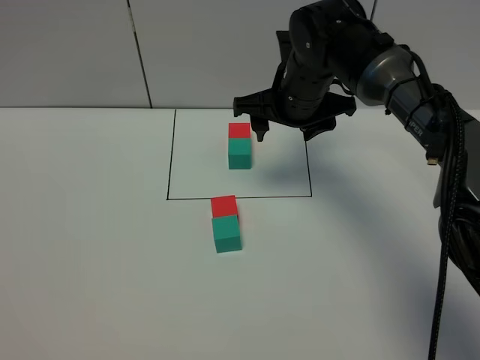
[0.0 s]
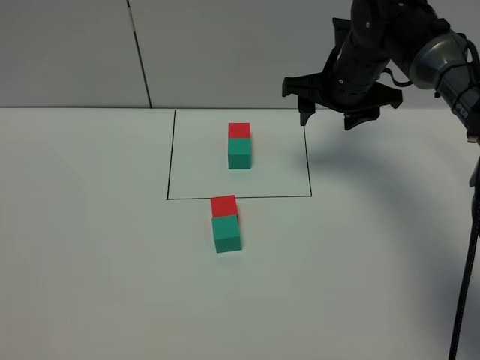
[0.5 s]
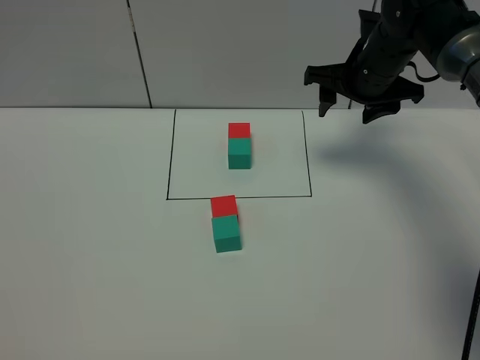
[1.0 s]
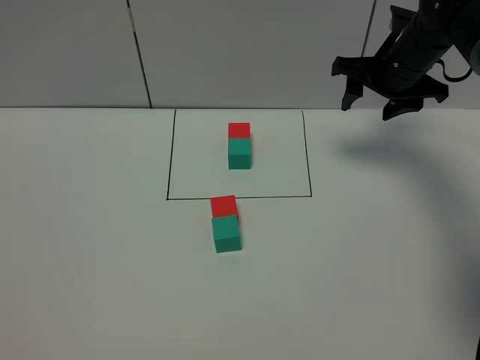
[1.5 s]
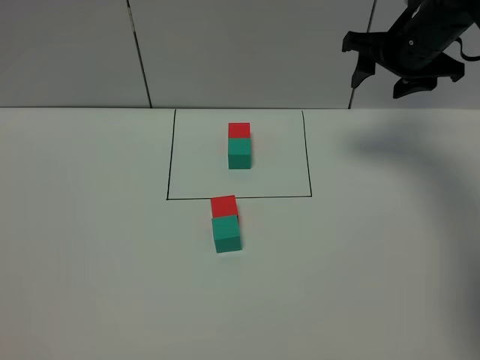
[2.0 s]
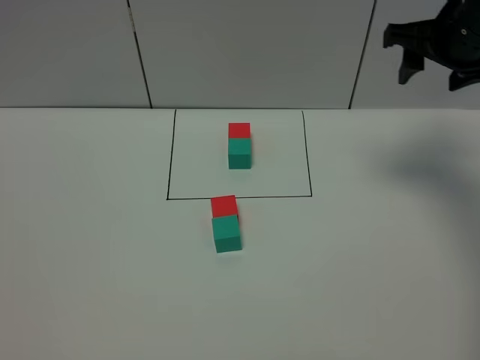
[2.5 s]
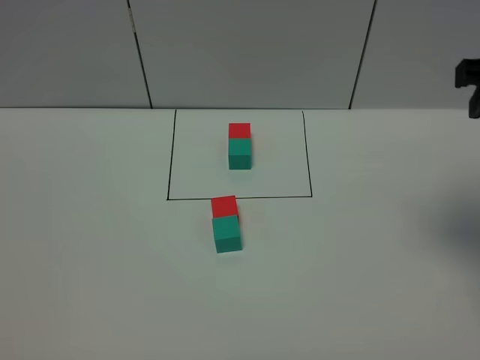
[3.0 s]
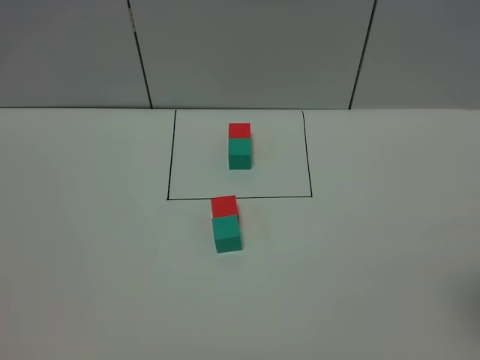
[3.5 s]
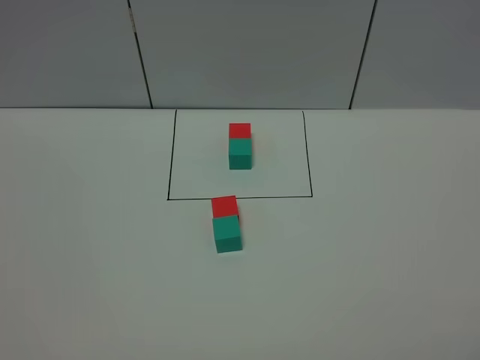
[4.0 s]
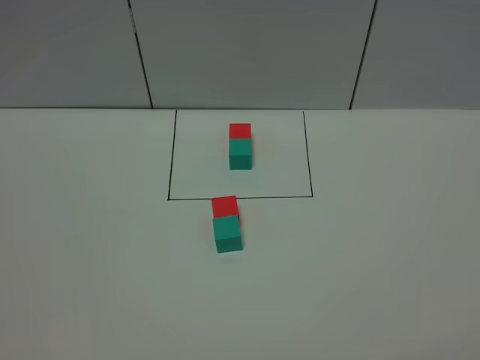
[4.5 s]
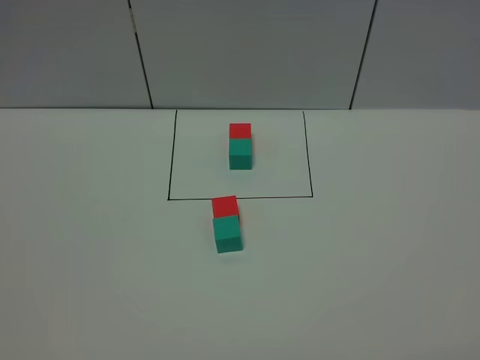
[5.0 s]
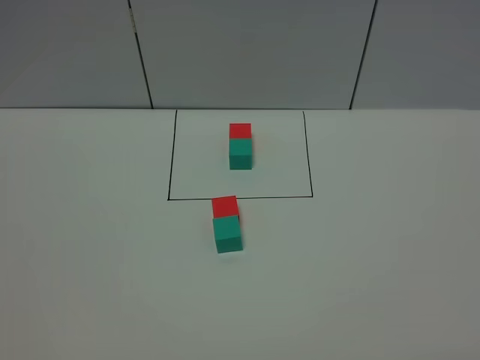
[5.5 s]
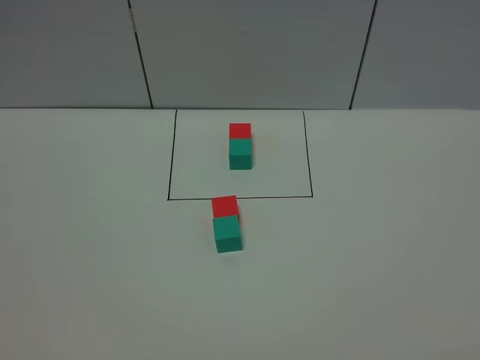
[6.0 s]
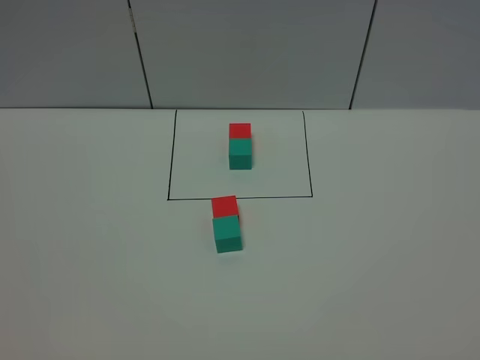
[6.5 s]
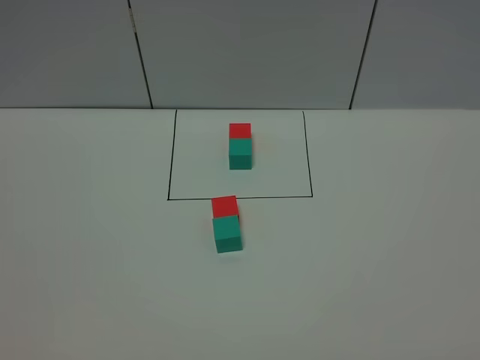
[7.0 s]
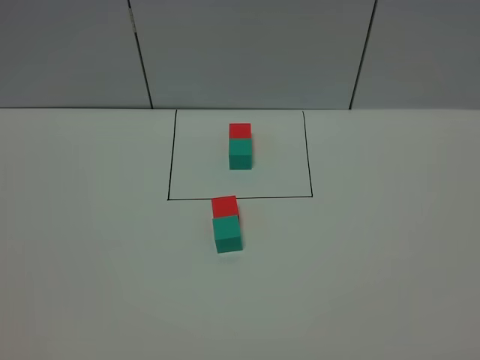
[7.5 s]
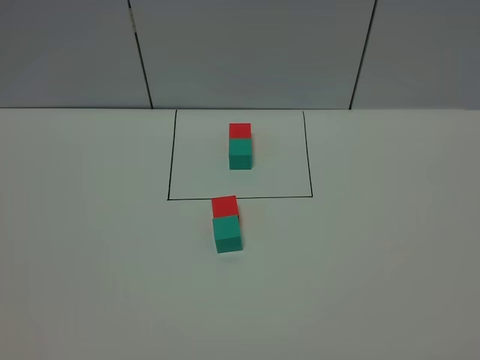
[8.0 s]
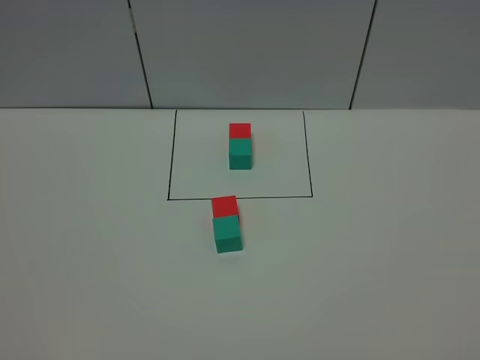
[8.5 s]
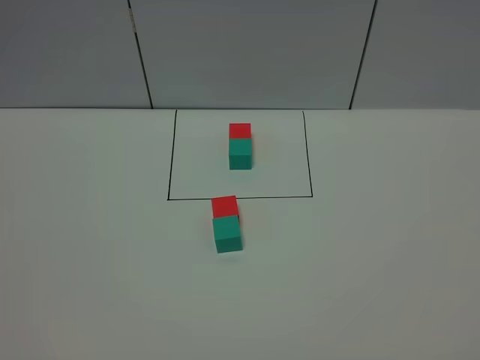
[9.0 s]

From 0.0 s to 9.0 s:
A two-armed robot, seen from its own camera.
Task of the whole recording: According to the building block template in front, assemble the scattered blocks together.
From 0.0 s to 2.0 s: The right gripper moves to the right, about 15 cm.
From 2.0 s to 4.5 s: The right gripper goes about 50 cm backward.
From 7.0 s to 9.0 s: The two grippers keep their place.

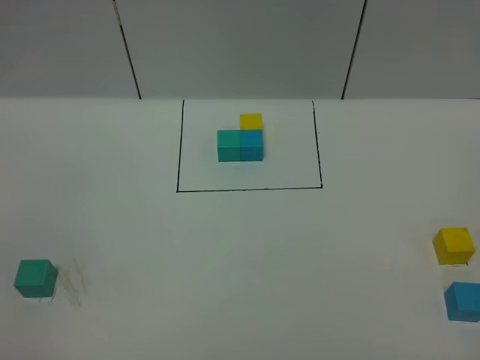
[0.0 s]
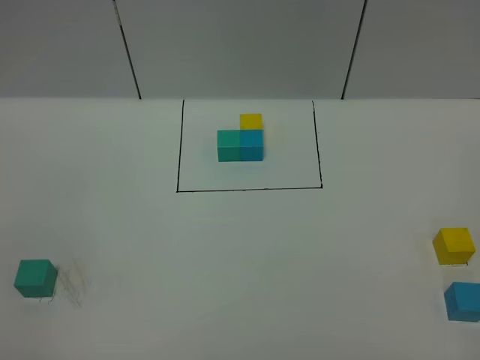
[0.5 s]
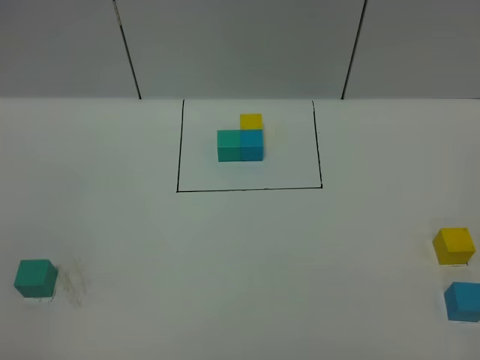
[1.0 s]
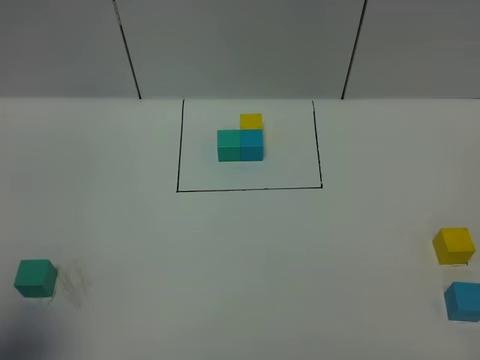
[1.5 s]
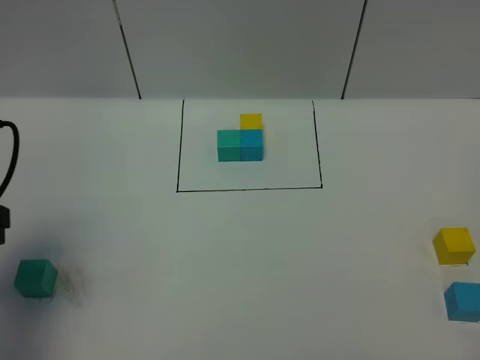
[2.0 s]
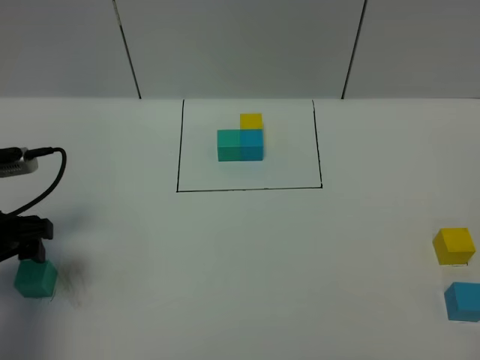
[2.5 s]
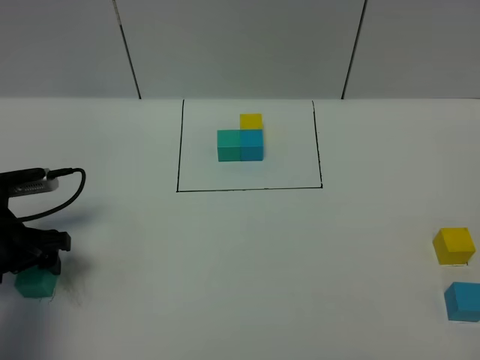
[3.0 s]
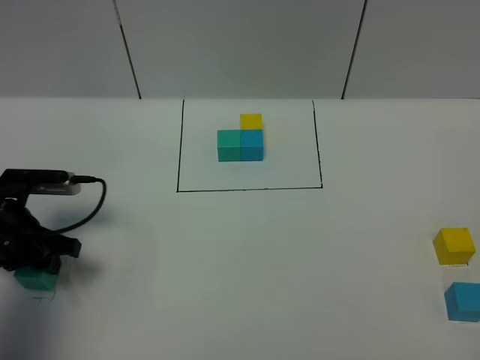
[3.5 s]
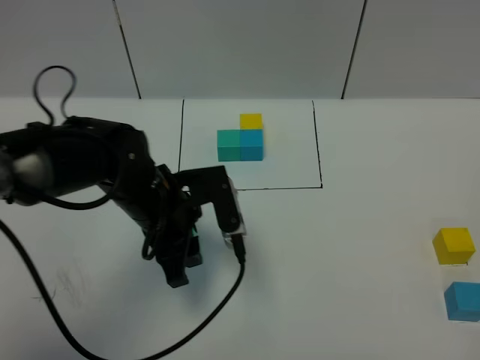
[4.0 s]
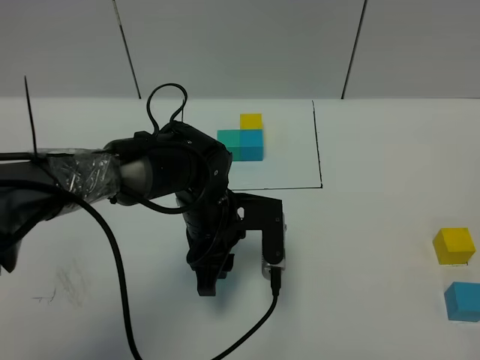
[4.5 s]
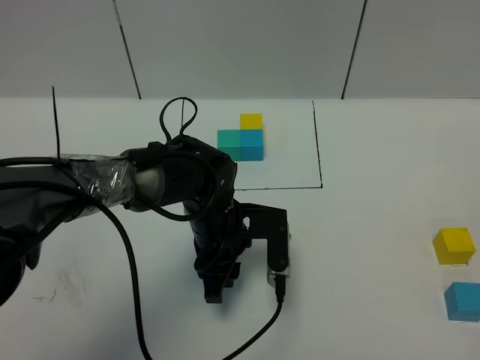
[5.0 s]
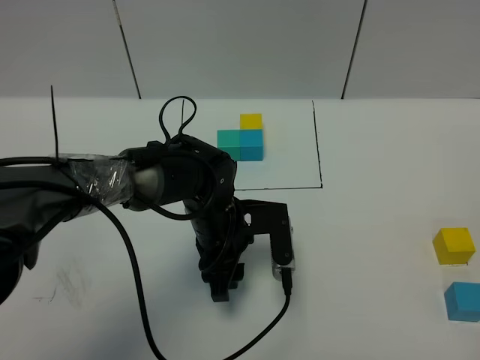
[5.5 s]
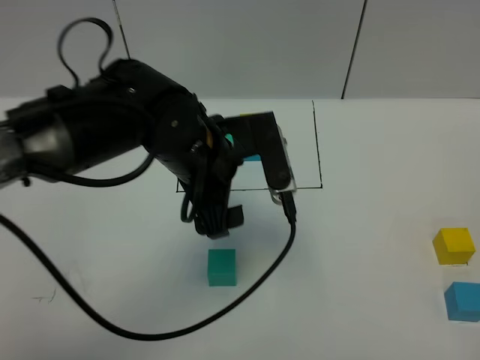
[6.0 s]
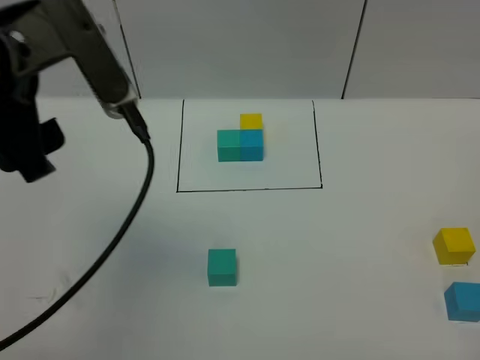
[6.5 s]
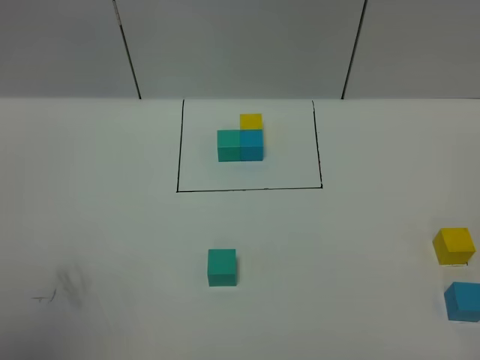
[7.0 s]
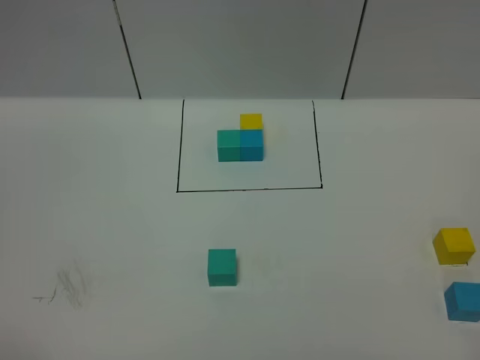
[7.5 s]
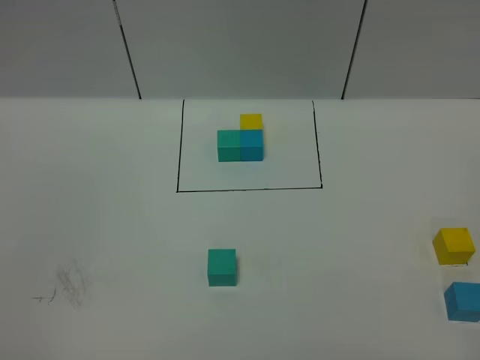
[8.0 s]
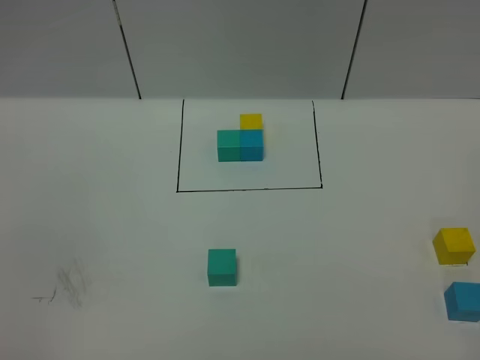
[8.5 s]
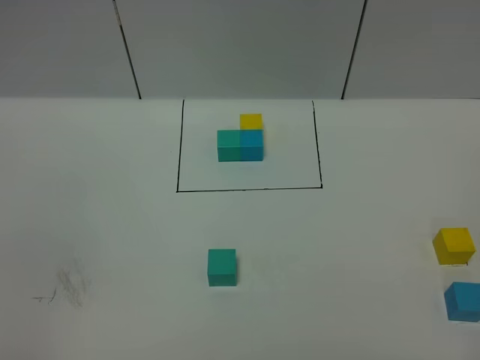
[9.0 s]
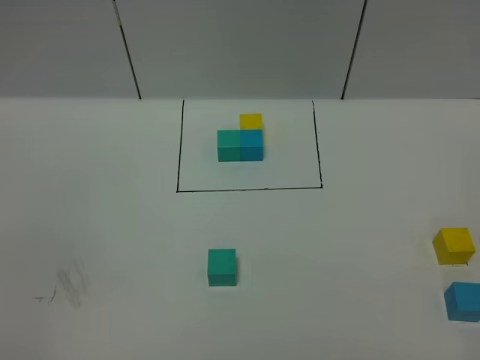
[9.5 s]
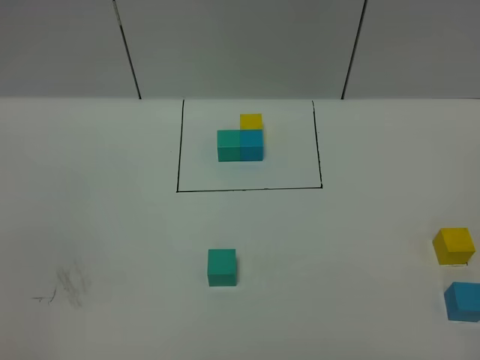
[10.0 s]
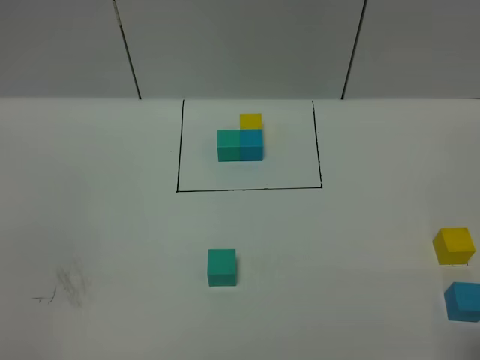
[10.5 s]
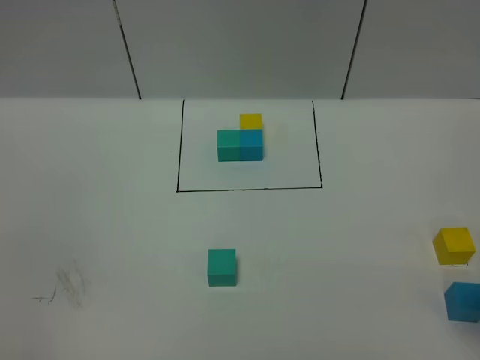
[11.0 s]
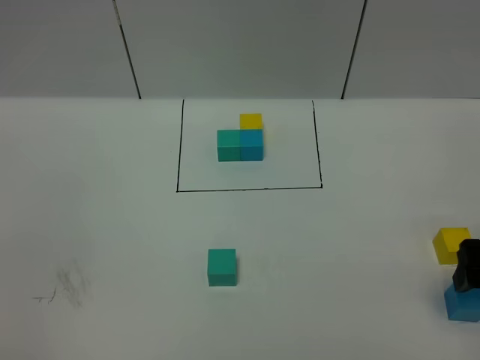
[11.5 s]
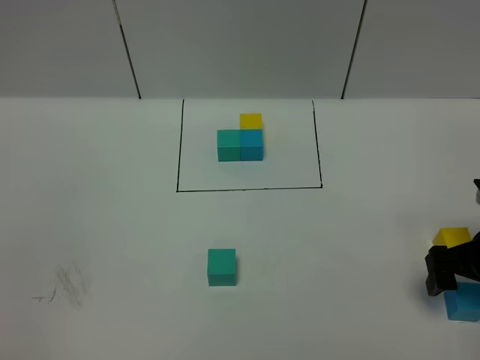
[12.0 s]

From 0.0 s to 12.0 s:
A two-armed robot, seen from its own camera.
Task of the whole recording: According to the building block template in front, assemble the scattered blocks together.
Step, from 2.0 s to 5.5 s: Put the green cube in the center of the table.
From 0.0 s to 2.0 s: The left gripper shifts some 25 cm forward.
From 2.0 s to 4.0 s: The left gripper travels to the right and downward by some 25 cm, and closes up.
From 4.0 s to 6.0 s: The left gripper goes roughly 10 cm upward, and opens up.
From 6.0 s to 8.0 s: The left gripper shifts roughly 40 cm backward and to the left, and closes up.
From 10.0 s to 12.0 s: The right gripper heads forward and downward, covering some 30 cm, and opens.

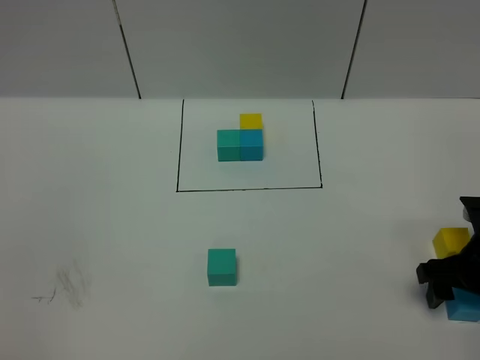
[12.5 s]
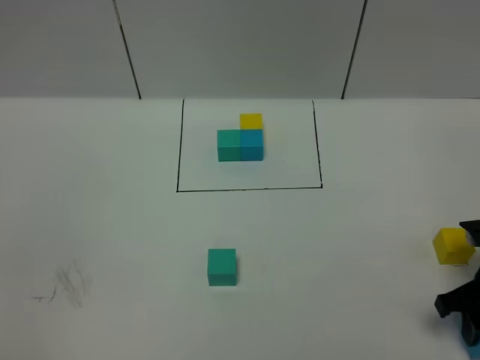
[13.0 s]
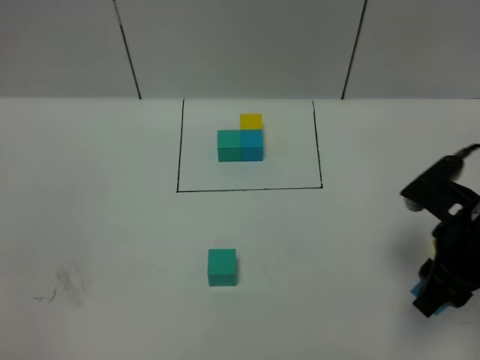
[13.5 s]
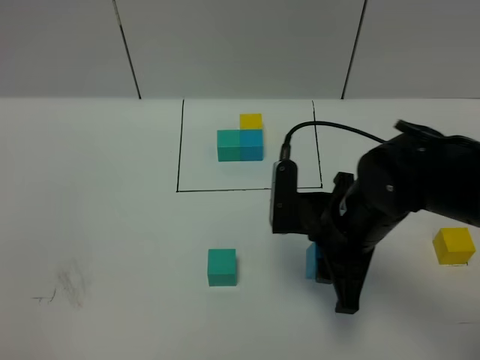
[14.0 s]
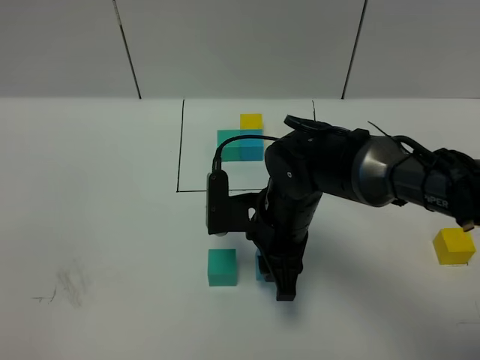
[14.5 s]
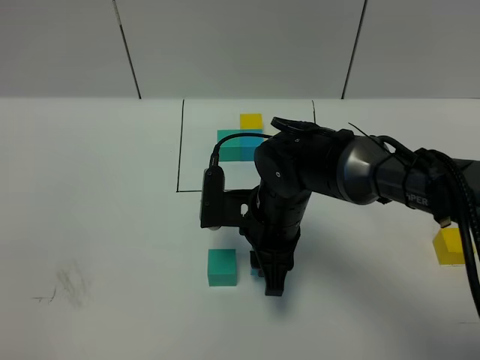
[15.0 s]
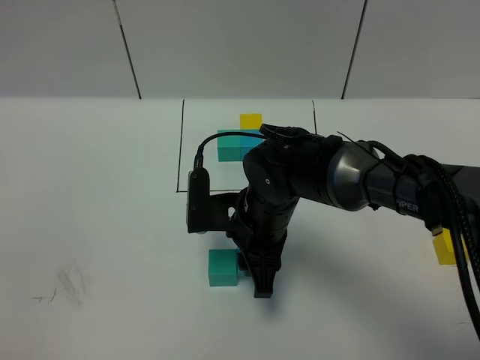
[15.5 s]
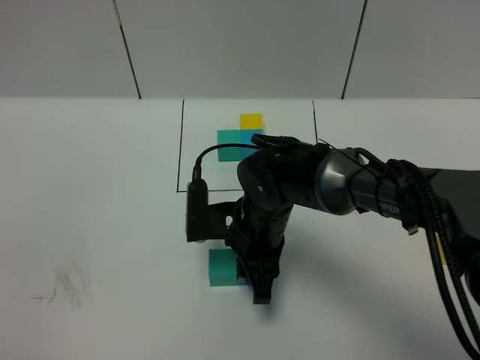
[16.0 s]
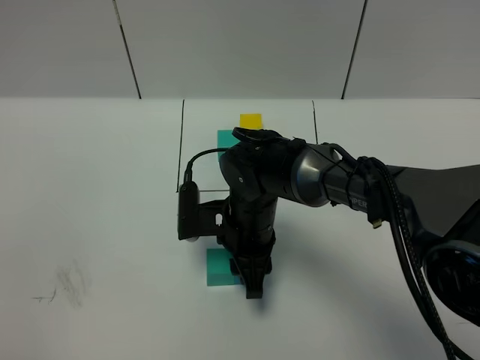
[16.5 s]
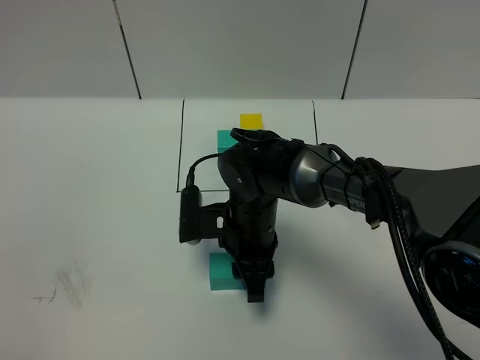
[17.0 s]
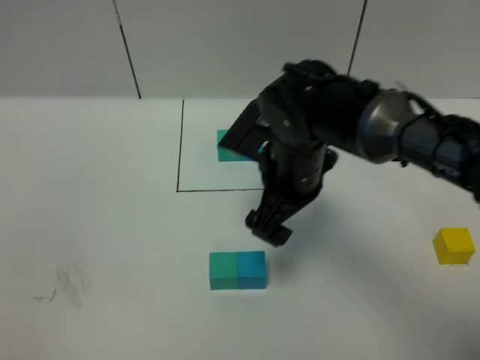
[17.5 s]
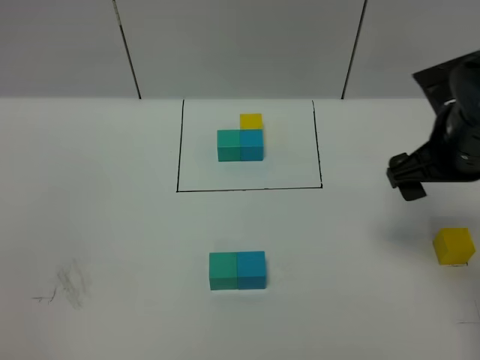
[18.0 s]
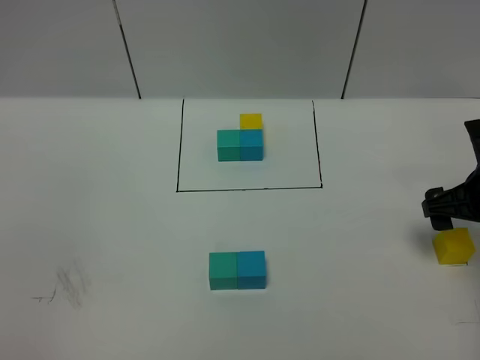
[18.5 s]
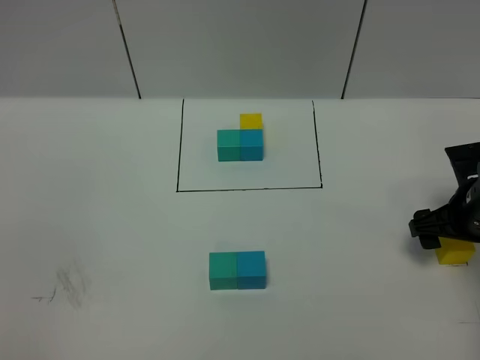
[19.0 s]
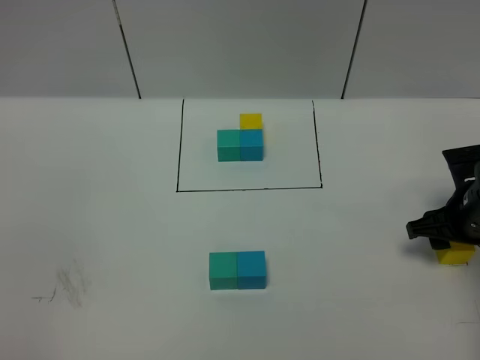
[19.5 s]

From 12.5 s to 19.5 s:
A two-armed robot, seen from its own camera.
Task of the whole recording: According to the building block template in front, assemble the scattered blocks together.
Step, from 12.5 s to 17.0 s: Put the blue cube on the right of the green cube.
From 12.5 s to 14.5 s: The right gripper heads to the left, covering approximately 25 cm, and closes up.
From 14.5 s to 16.0 s: The grippers stay close to where they were, moving slightly.
From 16.0 s to 17.5 s: The right gripper goes approximately 10 cm upward, and opens its fingers.
From 17.5 s to 19.5 s: The right gripper moves to the right and downward, some 25 cm, and closes.
